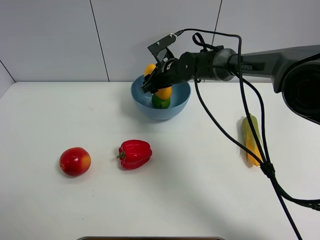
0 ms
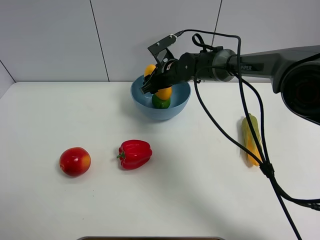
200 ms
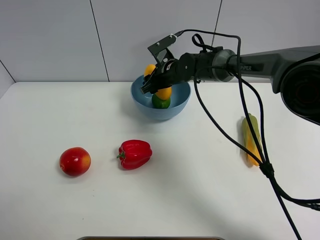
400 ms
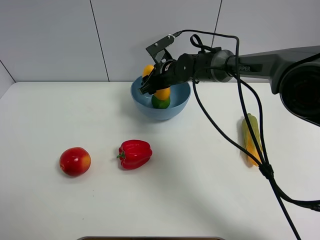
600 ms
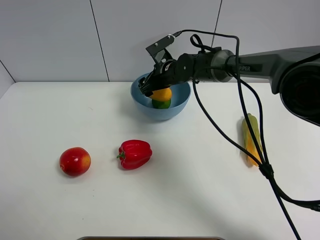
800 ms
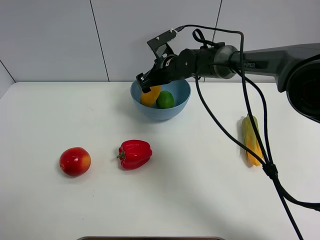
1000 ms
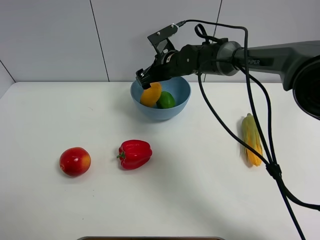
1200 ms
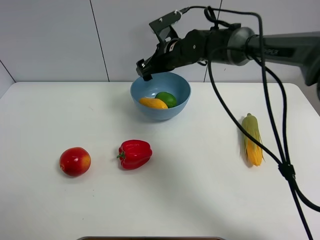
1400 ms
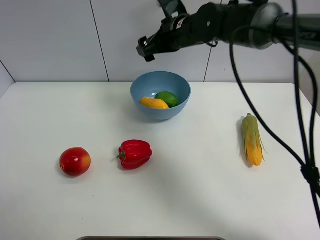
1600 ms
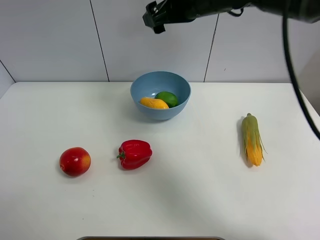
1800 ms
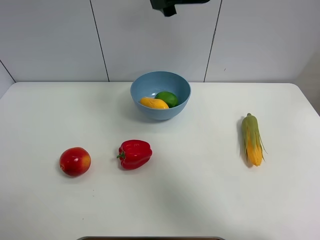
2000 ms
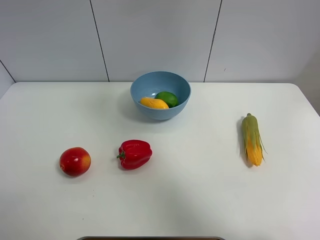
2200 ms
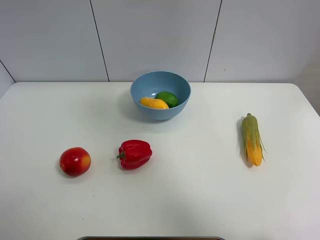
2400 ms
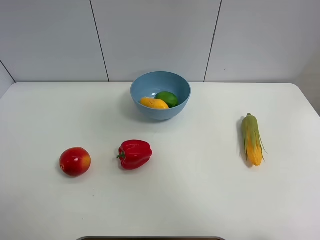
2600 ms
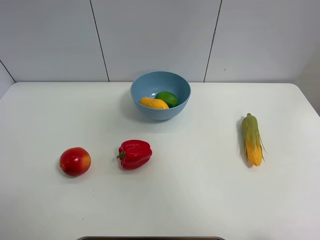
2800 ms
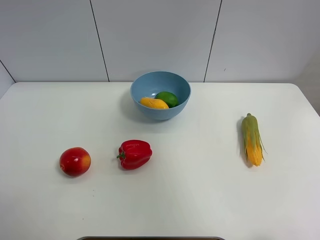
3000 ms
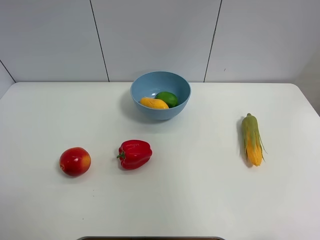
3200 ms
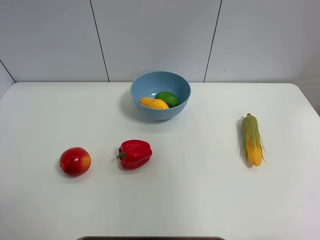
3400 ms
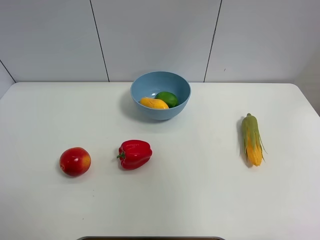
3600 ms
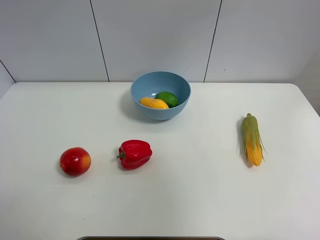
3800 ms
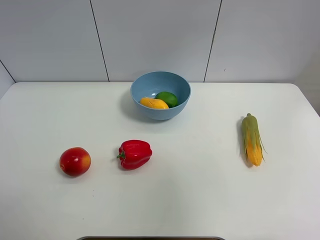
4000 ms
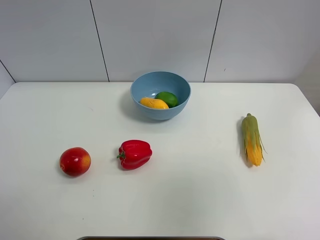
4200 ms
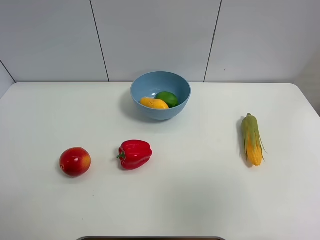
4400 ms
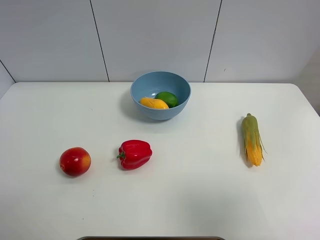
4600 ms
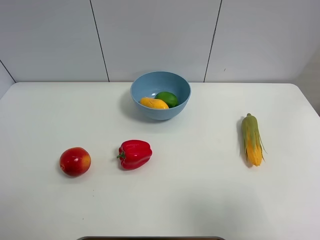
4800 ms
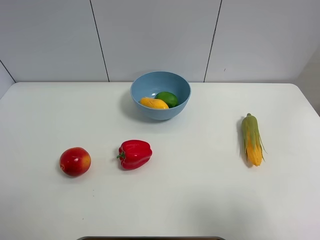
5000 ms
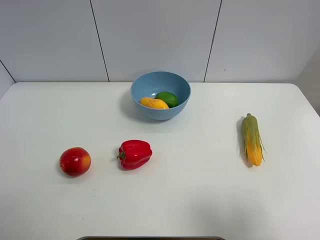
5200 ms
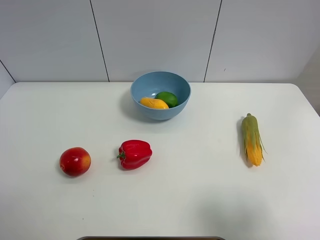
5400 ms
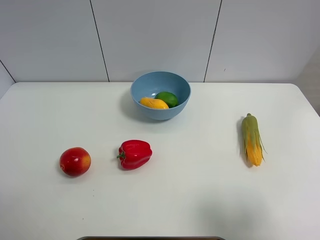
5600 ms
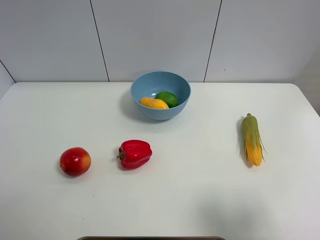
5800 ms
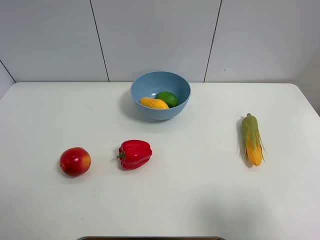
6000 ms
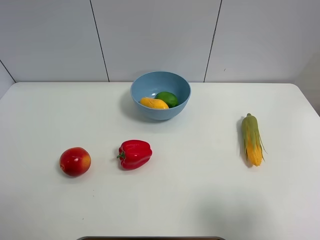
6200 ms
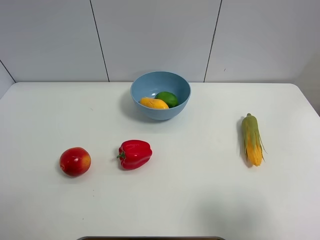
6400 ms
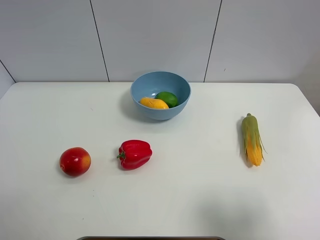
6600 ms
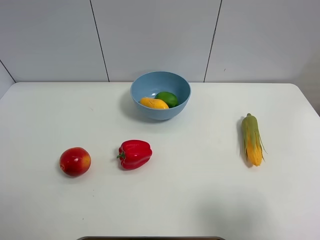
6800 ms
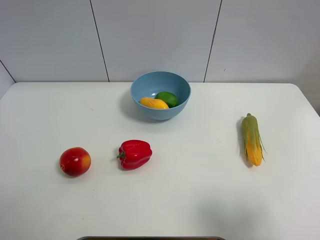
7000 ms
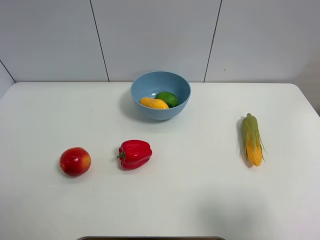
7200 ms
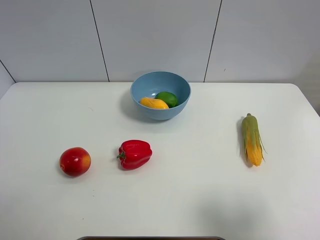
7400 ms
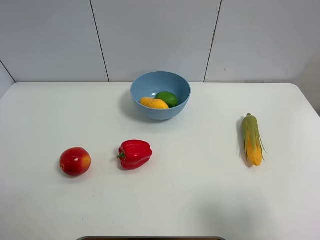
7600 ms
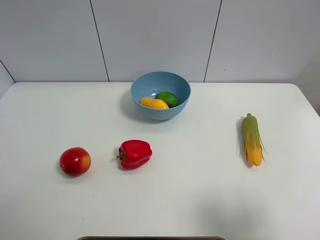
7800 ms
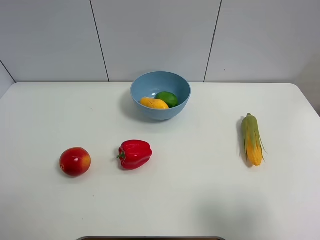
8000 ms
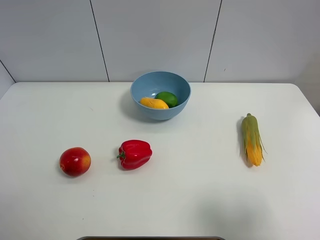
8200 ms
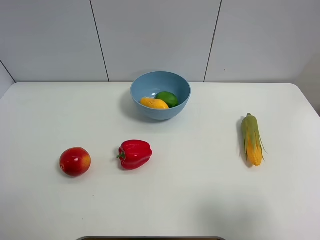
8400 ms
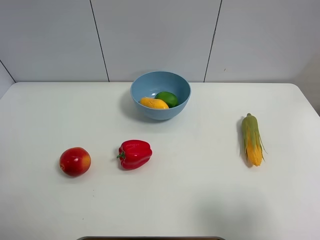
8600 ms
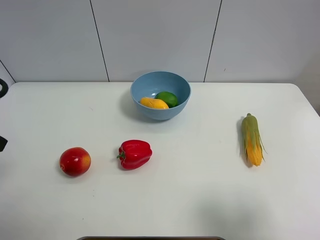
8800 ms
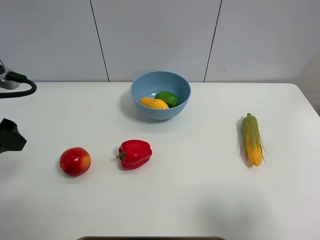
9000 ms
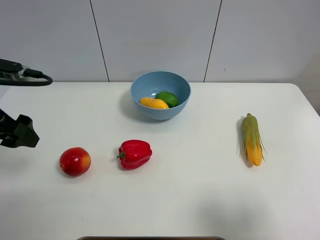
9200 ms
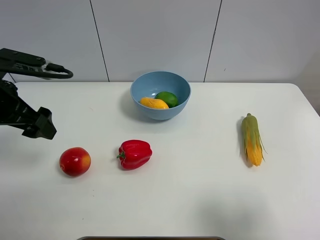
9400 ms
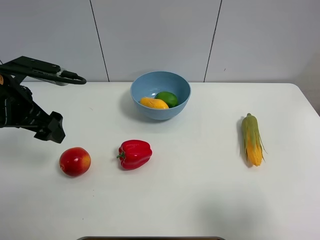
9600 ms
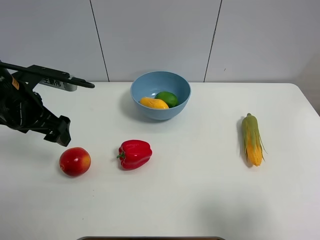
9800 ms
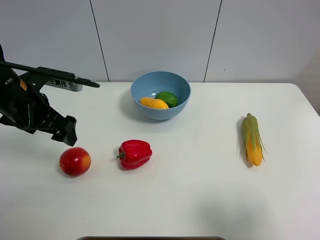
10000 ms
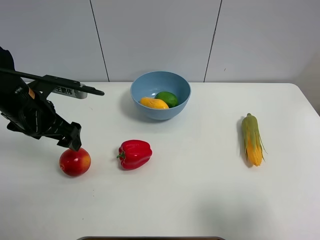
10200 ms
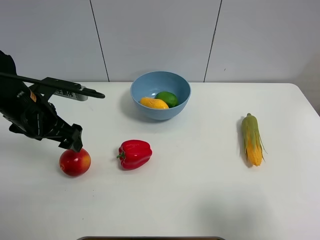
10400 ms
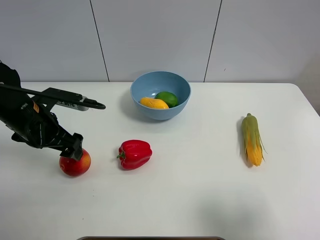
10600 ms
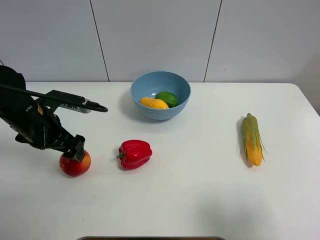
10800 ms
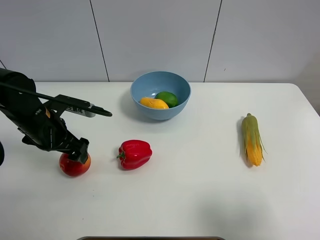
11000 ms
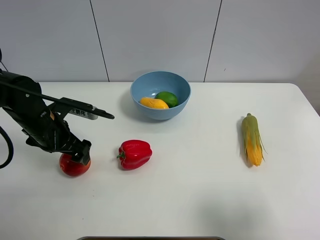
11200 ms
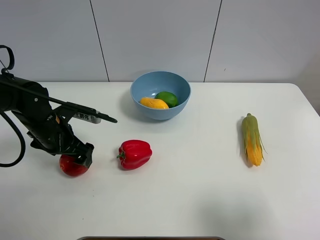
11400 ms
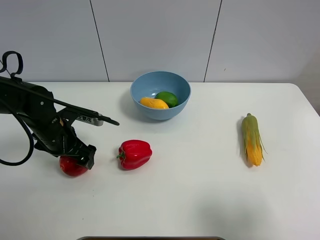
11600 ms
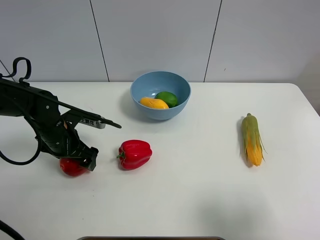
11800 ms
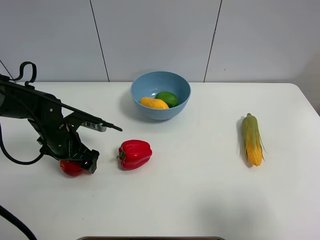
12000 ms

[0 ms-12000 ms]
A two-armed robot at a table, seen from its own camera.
Task of the whole recording: Put the three fruits on the table into a bowl.
0 ms to 1600 ms: The right gripper travels upward by some 15 cm, and opens up.
1600 ms to 3000 ms: The right gripper is displaced backward, upward and to the right by roughly 40 cm.
3000 ms to 4400 ms: The right gripper goes roughly 20 cm downward and backward.
4400 ms to 6000 ms: The right gripper heads downward, covering roughly 10 cm.
6000 ms to 7600 ms: The two grippers keep their place.
7600 ms to 9000 ms: The left gripper heads forward, covering some 15 cm.
9000 ms to 10400 ms: The left gripper is displaced downward, forward and to the right by about 10 cm.
10400 ms to 12000 ms: The left gripper shifts roughly 10 cm downward.

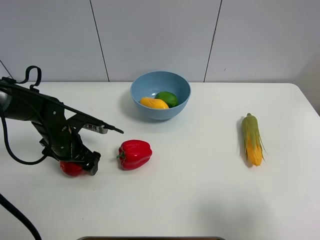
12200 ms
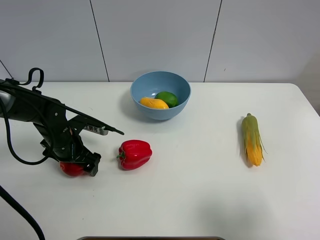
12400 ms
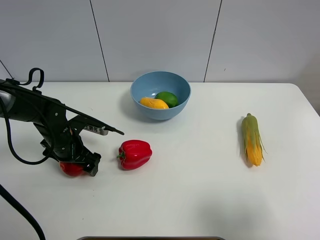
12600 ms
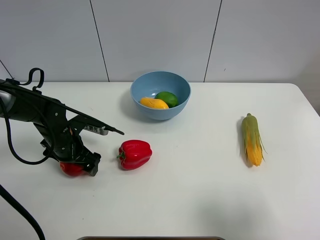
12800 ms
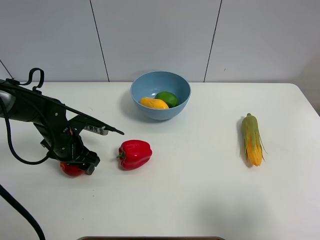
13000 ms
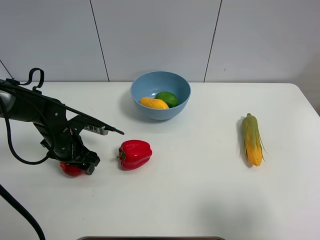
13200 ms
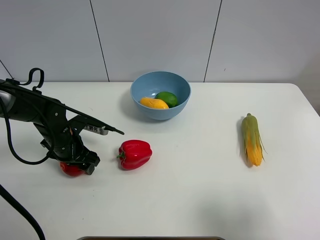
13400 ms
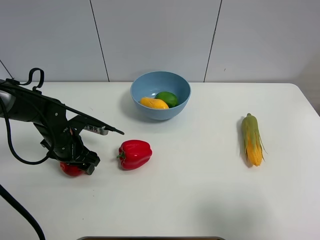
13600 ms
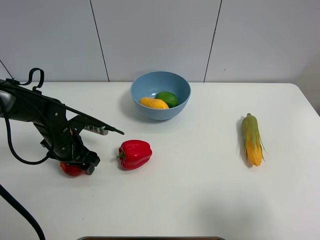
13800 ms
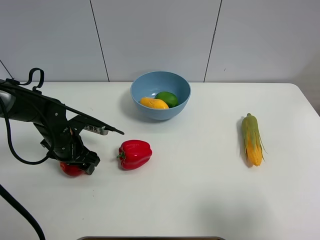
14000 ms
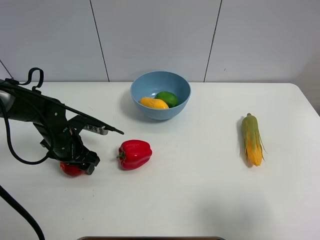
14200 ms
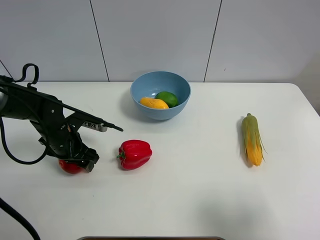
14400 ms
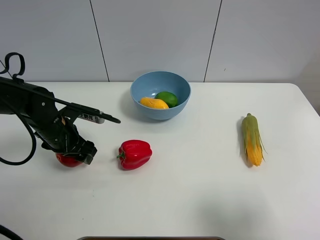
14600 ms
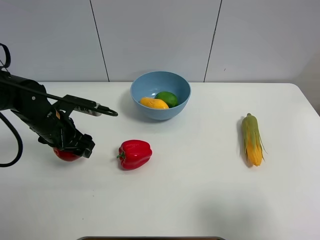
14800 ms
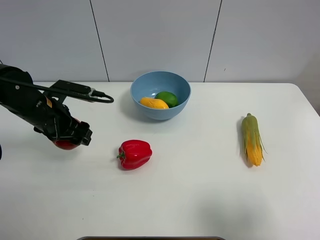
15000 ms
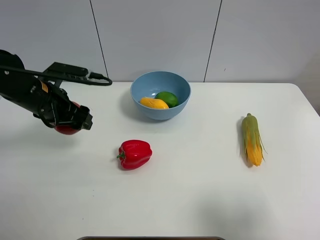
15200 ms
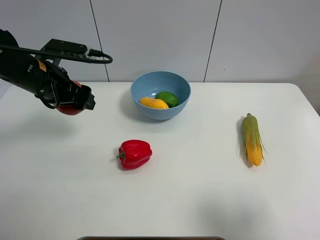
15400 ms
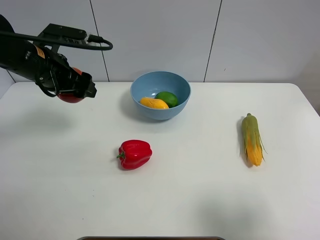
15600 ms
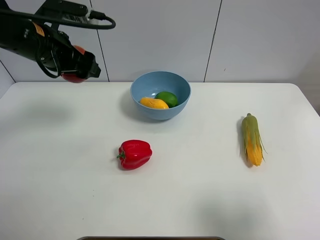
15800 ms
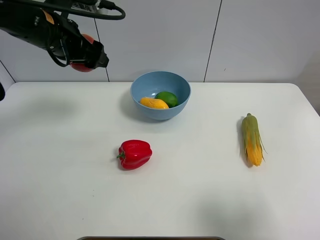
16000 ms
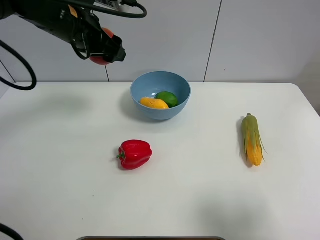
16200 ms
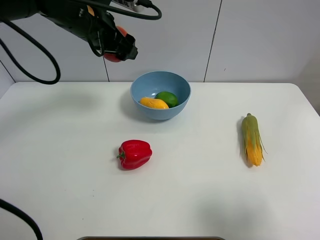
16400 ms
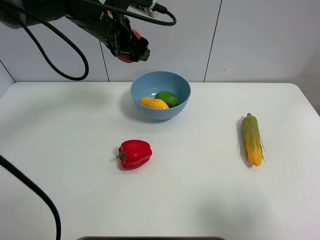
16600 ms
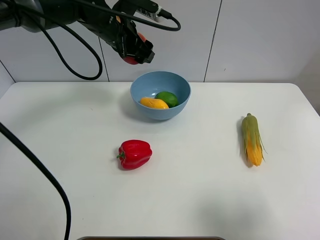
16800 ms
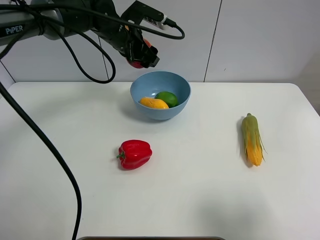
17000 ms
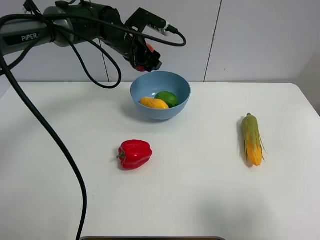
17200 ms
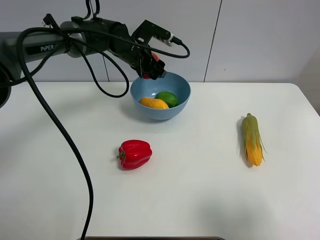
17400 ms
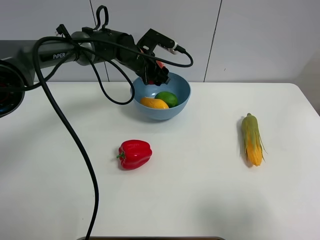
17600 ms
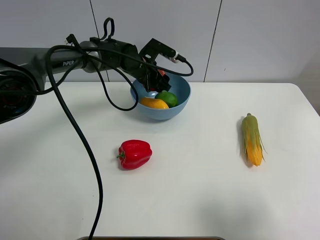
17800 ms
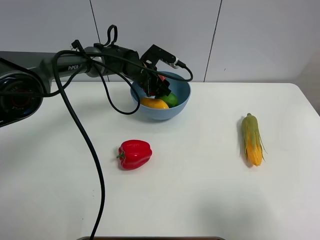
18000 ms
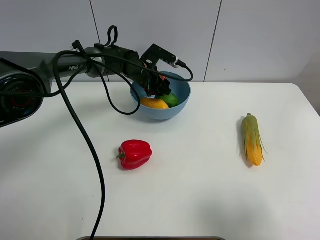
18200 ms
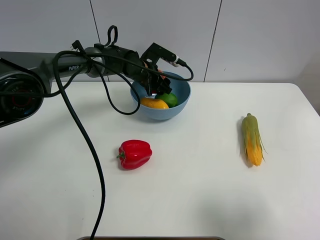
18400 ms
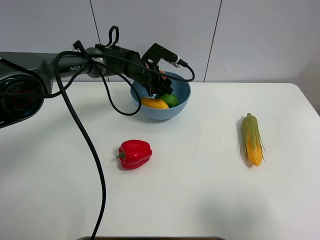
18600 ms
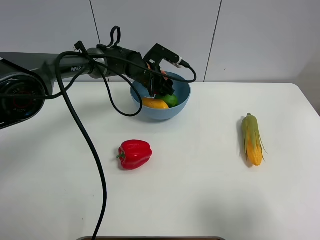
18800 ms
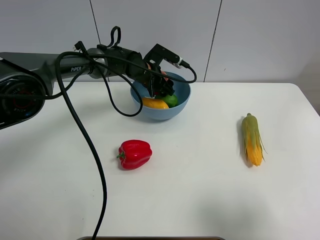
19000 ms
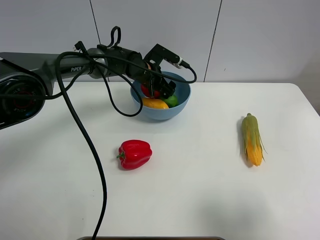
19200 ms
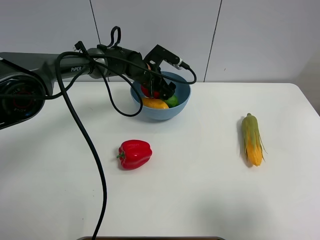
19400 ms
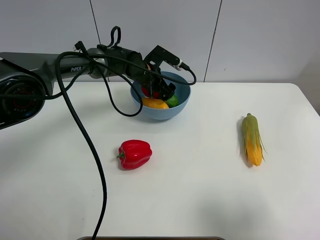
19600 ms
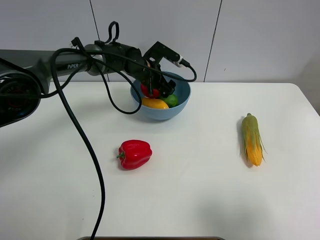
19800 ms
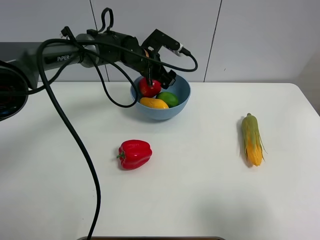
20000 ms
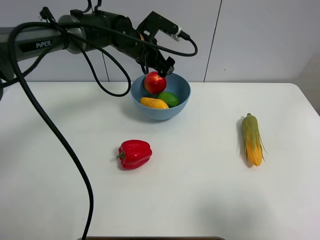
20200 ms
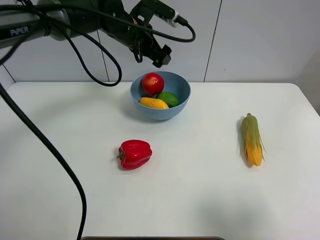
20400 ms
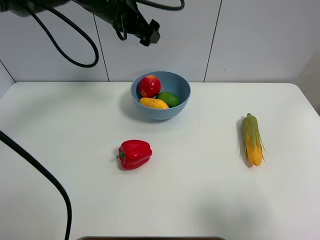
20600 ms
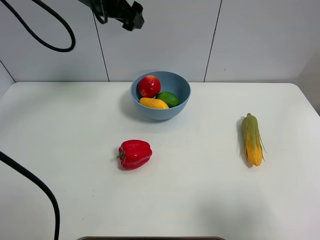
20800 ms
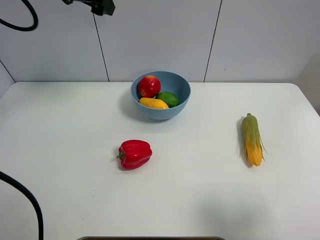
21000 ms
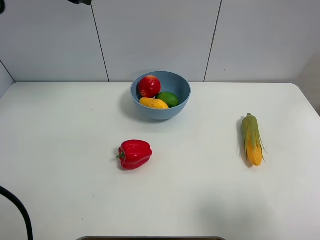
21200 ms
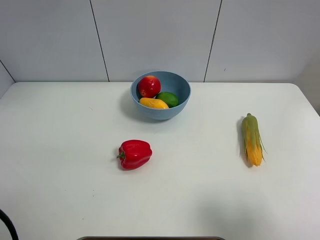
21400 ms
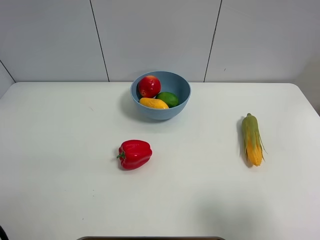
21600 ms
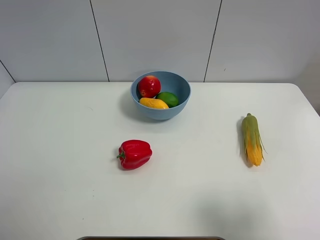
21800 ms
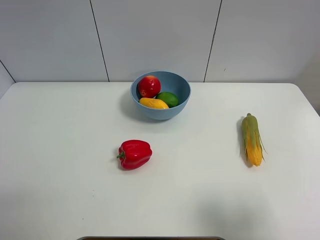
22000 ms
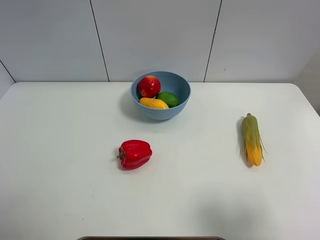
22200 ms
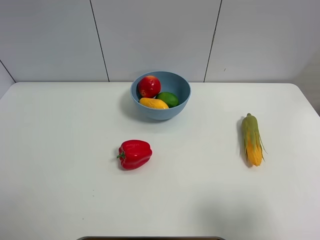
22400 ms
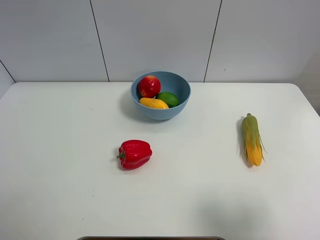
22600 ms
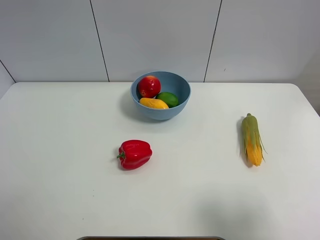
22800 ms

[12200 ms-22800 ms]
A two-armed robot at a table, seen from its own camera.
Task of the whole recording: Put the three fruits on the table into a bowl.
Step, 13200 ms to 20000 ms: Place the pomegranate in the blue bowl with left gripper.
12200 ms to 13800 ms: The left gripper closes.
13800 ms to 15200 ms: The left gripper moves upward, some 15 cm.
15200 ms to 16800 ms: The left gripper travels to the right, forward and upward by roughly 20 cm.
16800 ms to 18200 ms: The left gripper heads downward, covering approximately 15 cm.
18200 ms to 19800 ms: The left gripper opens.
19800 ms to 21200 ms: The left gripper shifts some 30 cm upward and to the left.
21200 ms to 22800 ms: The left gripper goes about 30 cm backward and to the left.
